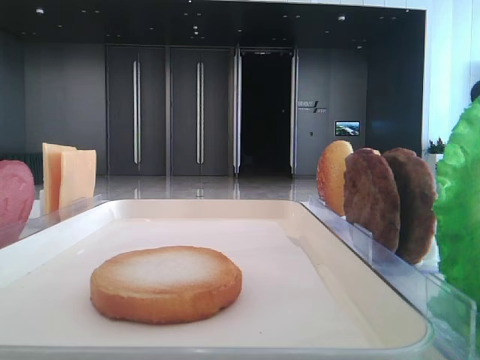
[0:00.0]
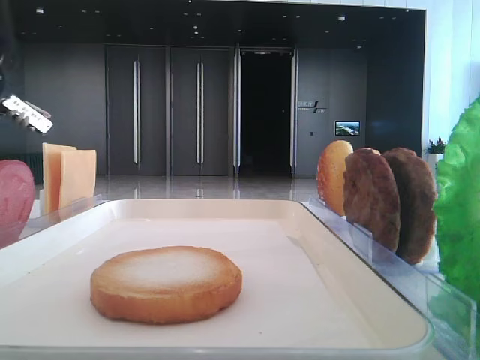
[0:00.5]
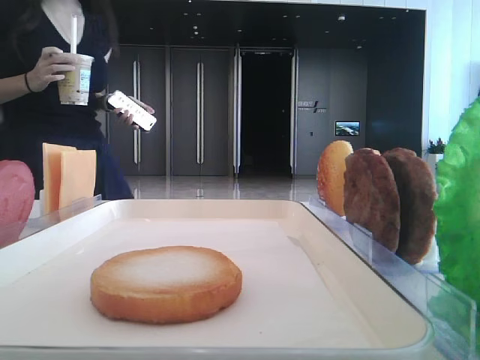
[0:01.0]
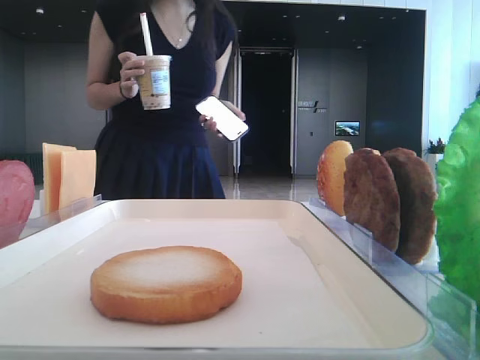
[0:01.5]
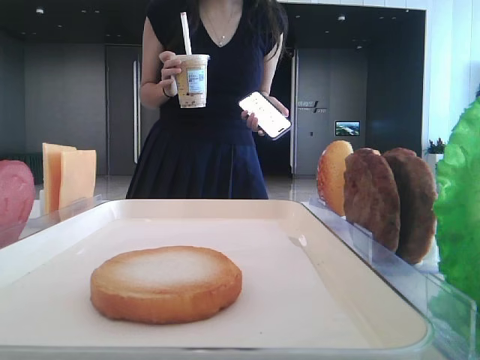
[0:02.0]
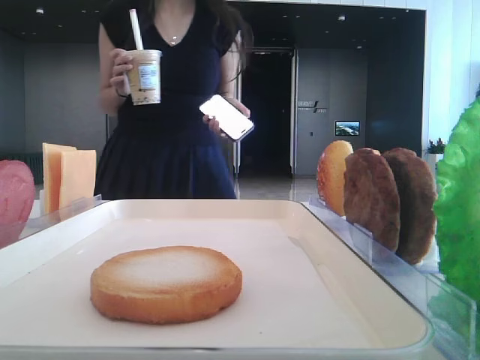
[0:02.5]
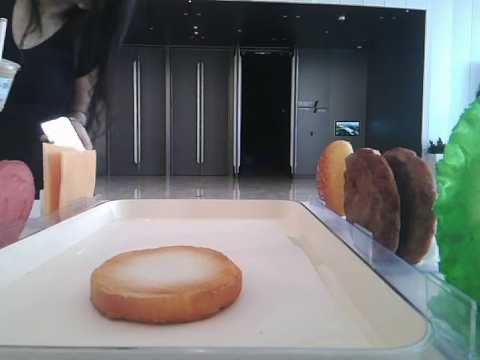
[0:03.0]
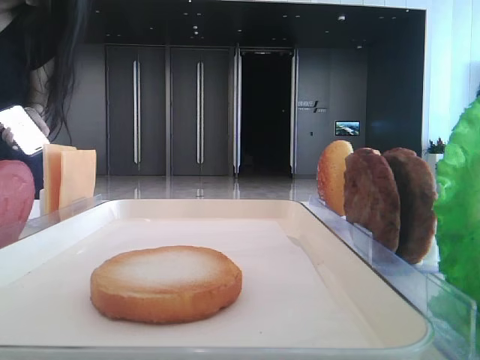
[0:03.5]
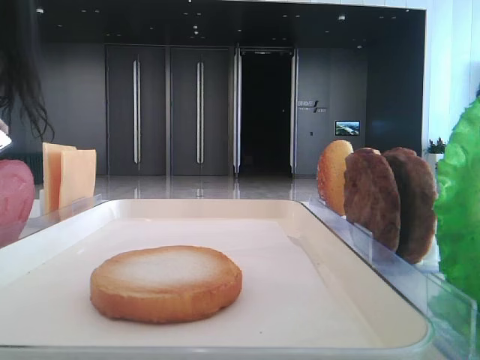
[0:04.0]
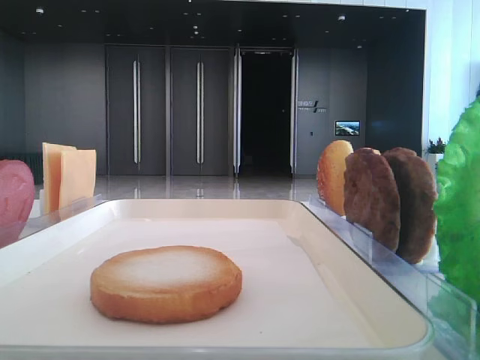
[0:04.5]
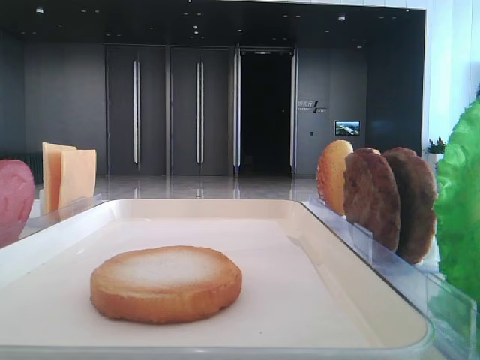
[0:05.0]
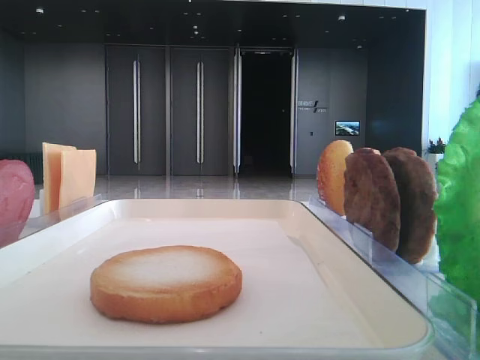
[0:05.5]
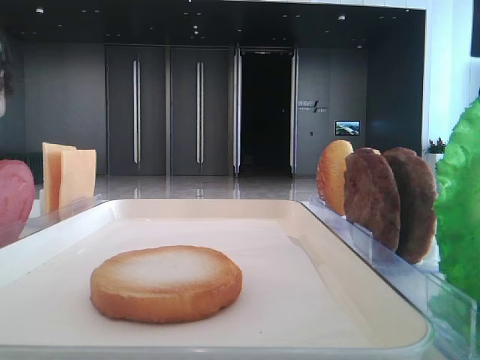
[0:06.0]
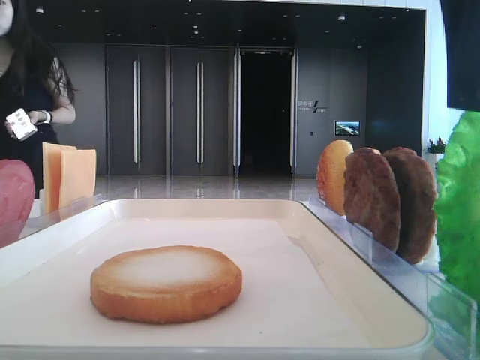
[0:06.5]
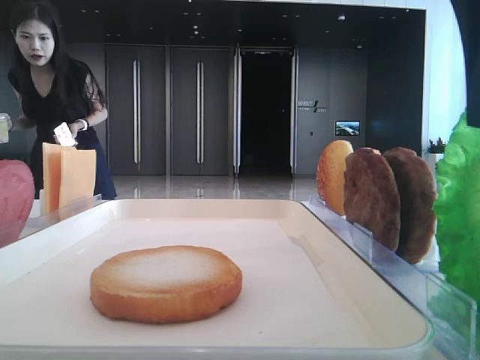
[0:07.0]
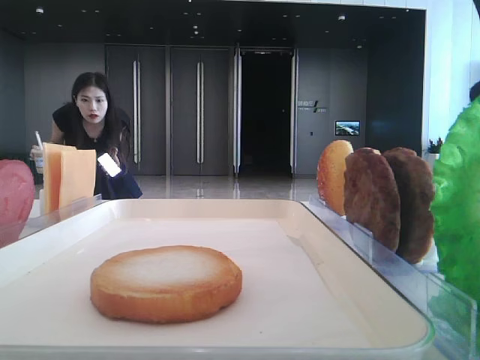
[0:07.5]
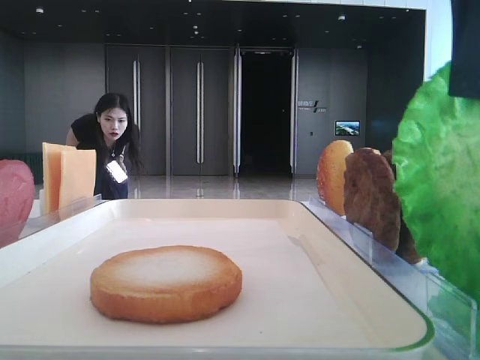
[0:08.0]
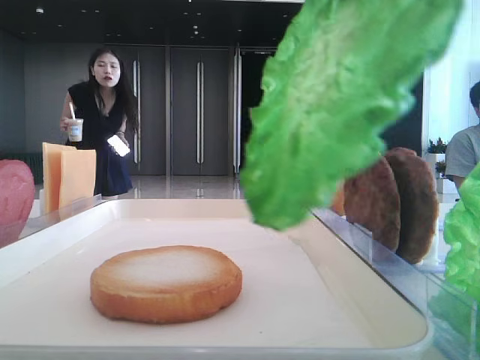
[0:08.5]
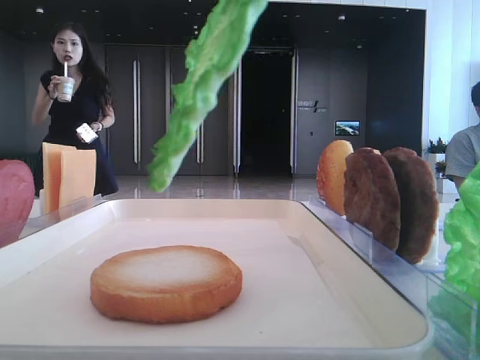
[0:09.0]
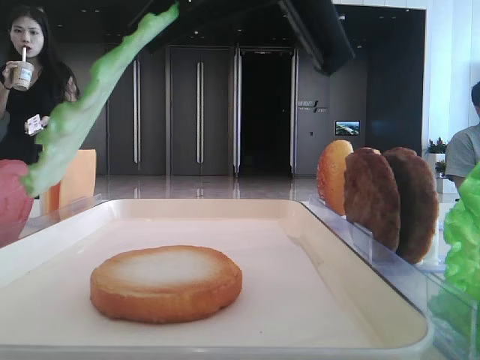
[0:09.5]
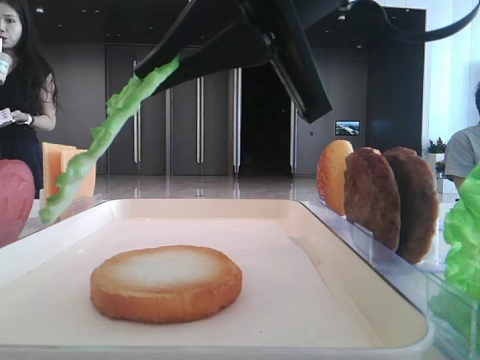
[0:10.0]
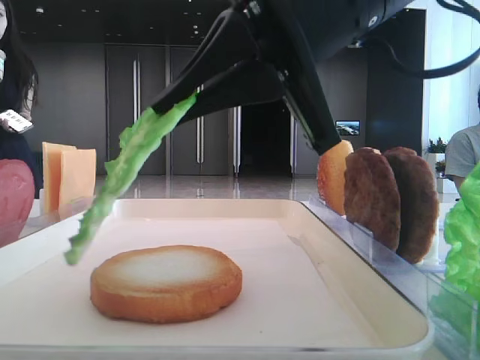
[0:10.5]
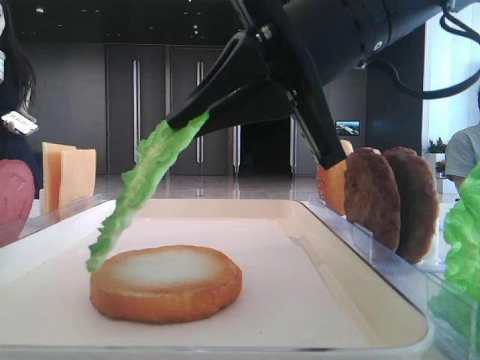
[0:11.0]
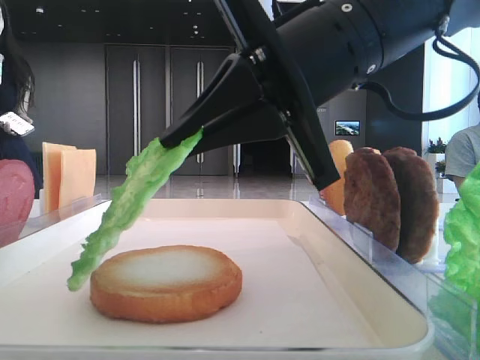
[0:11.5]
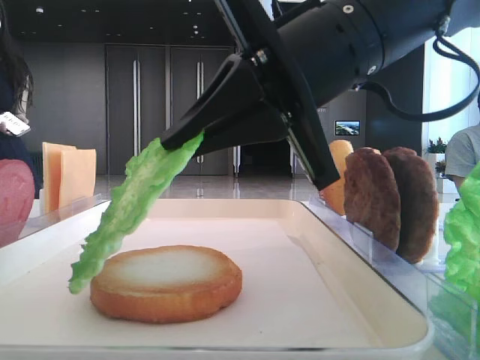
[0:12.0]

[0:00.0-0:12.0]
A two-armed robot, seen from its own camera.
Step, 0:00.0 to 0:07.5: Grab the lettuce leaf with the right hand.
0:02.0 to 0:04.0: The right gripper goes some 15 cm forward.
0:06.0 to 0:08.0: The right gripper closes up.
0:08.0 to 0:10.0: The right gripper shifts approximately 10 cm to the left and forward.
0:10.0 to 0:12.0: The right gripper ends up about 5 cm from where it was.

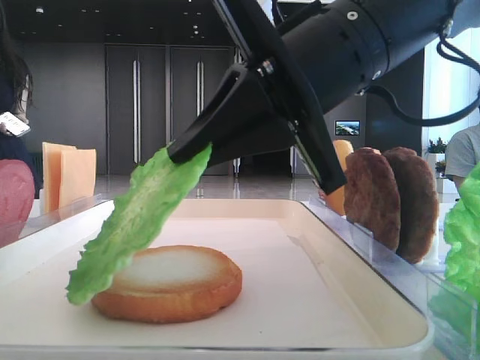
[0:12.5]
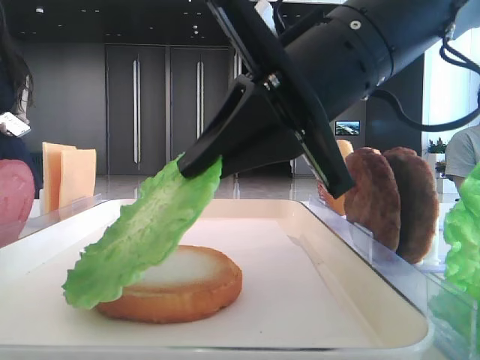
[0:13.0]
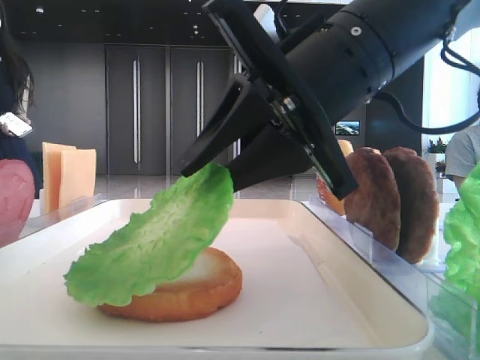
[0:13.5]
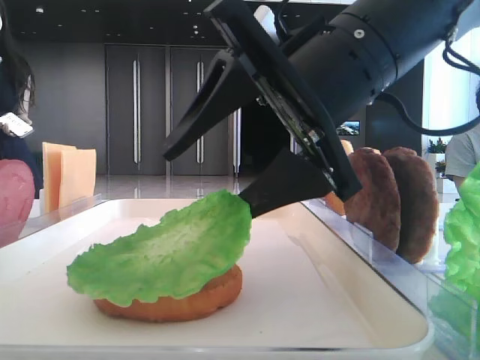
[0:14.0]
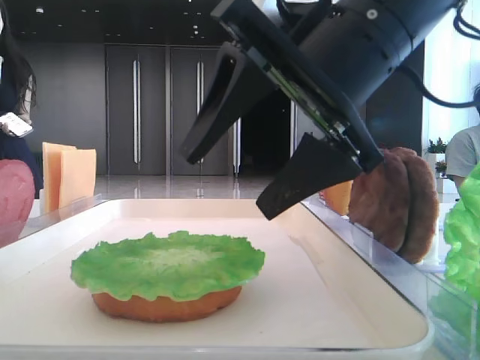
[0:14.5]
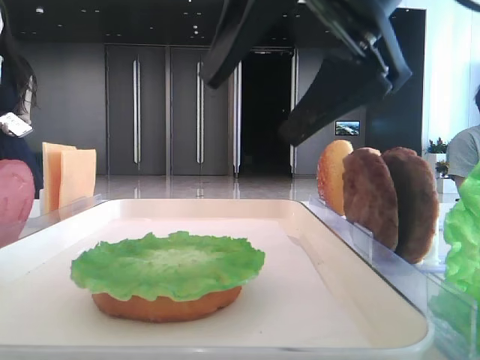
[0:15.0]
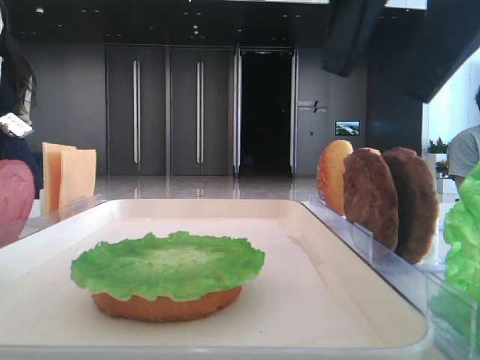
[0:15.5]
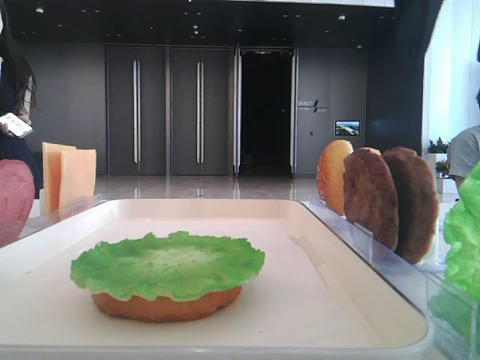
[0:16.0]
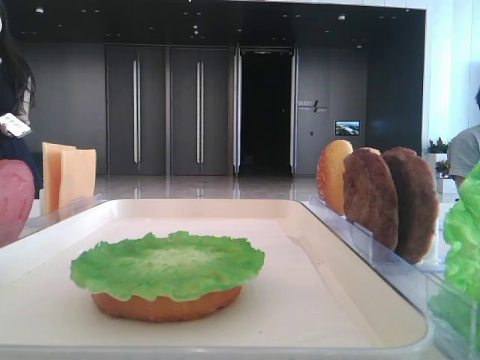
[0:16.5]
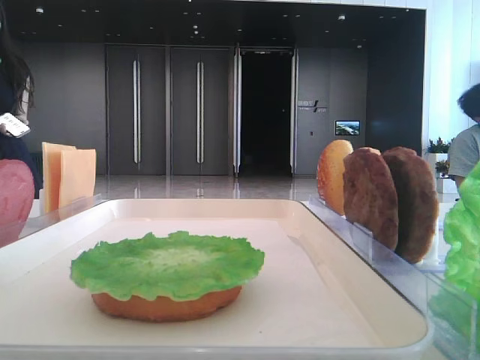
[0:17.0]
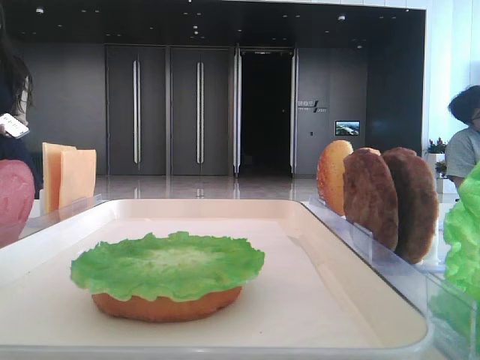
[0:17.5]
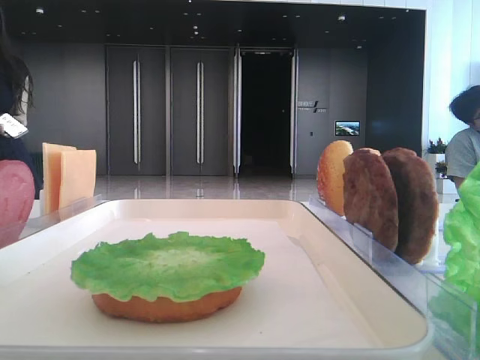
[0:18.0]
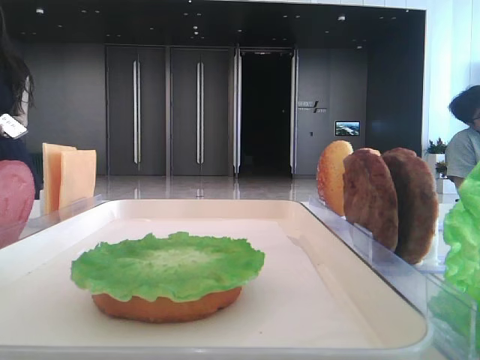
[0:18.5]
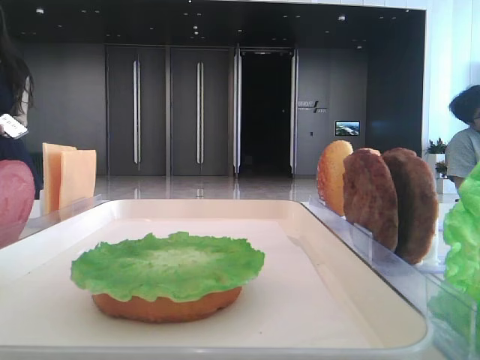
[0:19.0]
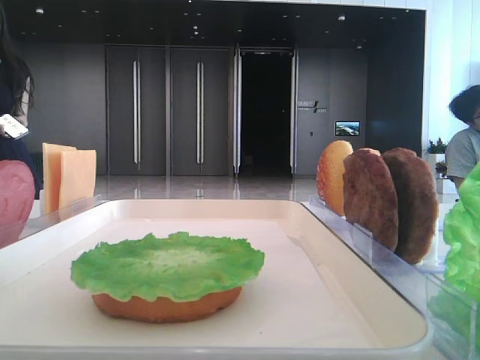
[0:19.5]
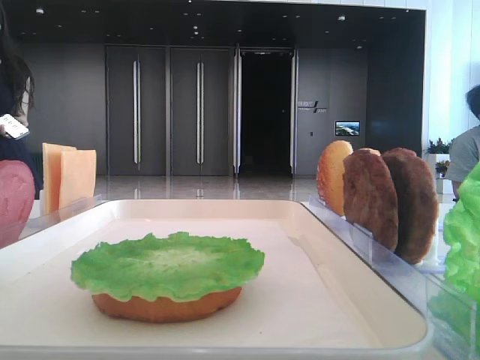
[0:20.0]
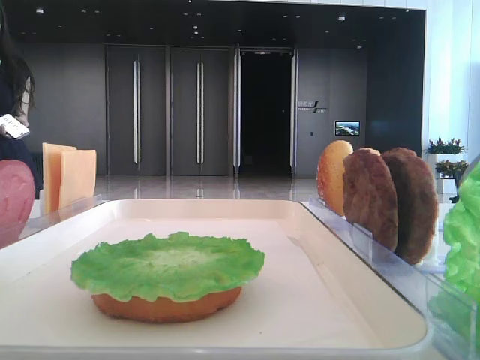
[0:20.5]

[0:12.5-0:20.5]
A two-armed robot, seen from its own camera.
0:12.5 to 0:14.5: The right gripper opens up.
0:14.5 to 0:16.5: The right gripper goes about 25 cm to the right and upward.
0:16.5 to 0:18.5: The right gripper shifts roughly 25 cm backward.
0:18.5 to 0:20.5: The right gripper shifts some 10 cm downward.

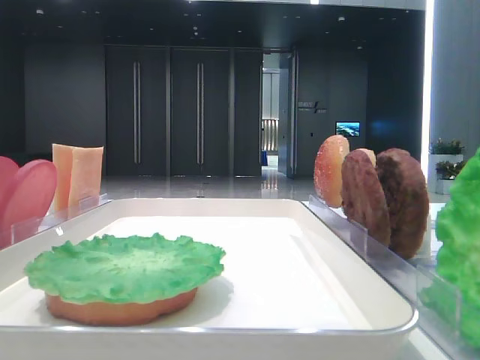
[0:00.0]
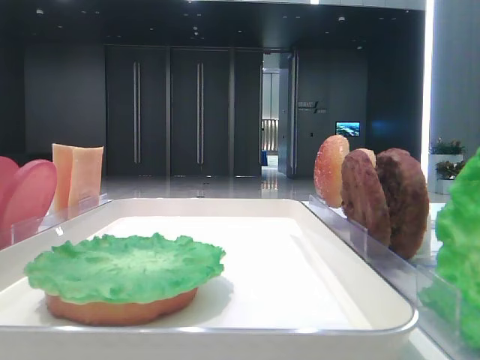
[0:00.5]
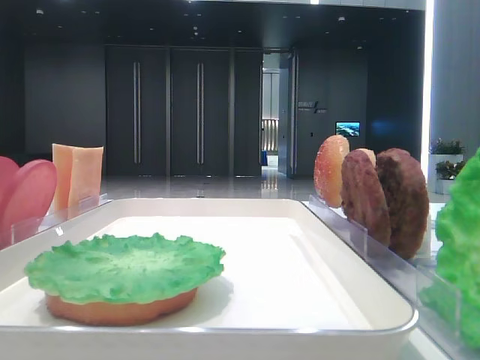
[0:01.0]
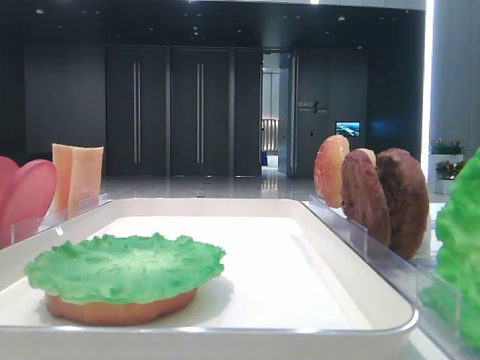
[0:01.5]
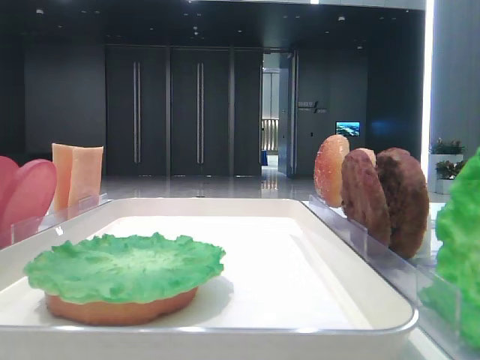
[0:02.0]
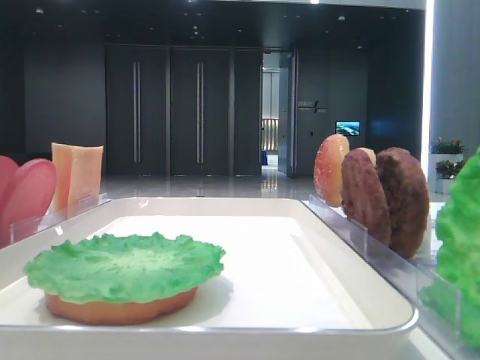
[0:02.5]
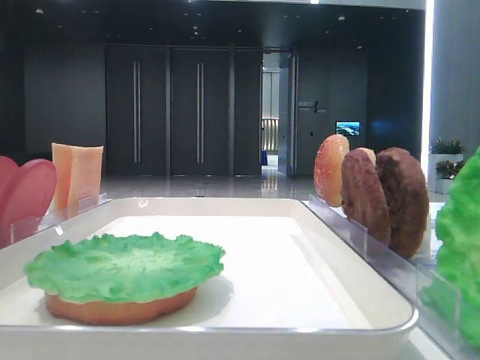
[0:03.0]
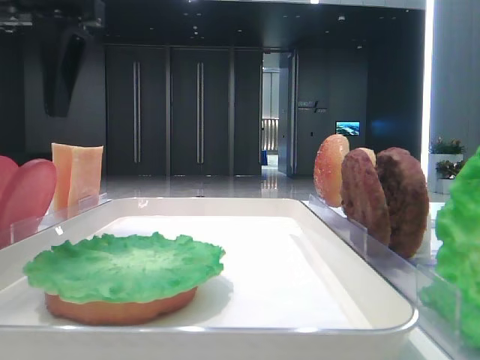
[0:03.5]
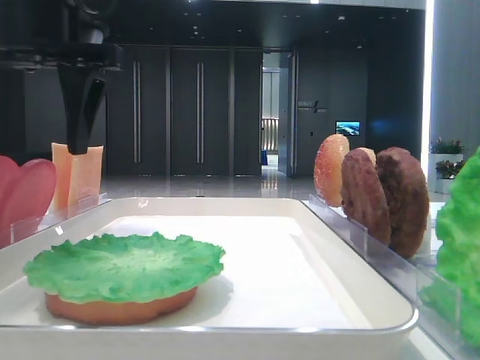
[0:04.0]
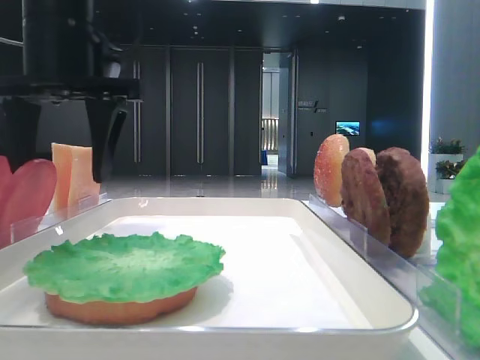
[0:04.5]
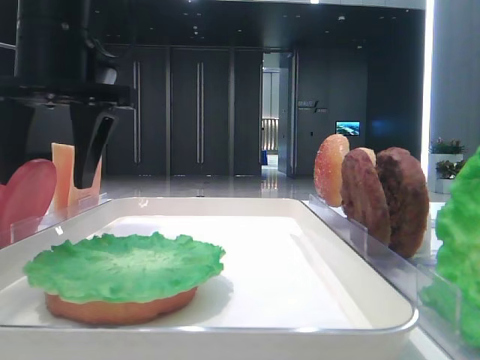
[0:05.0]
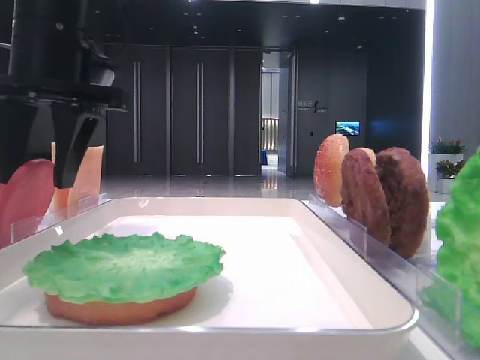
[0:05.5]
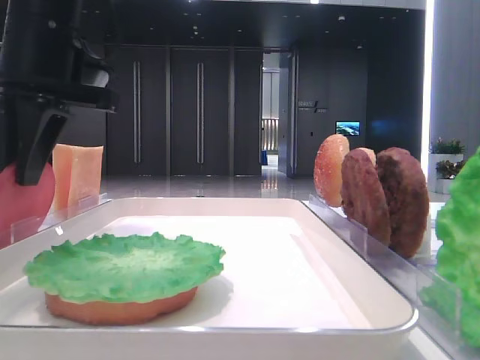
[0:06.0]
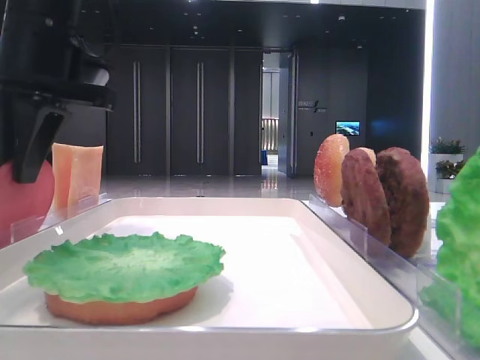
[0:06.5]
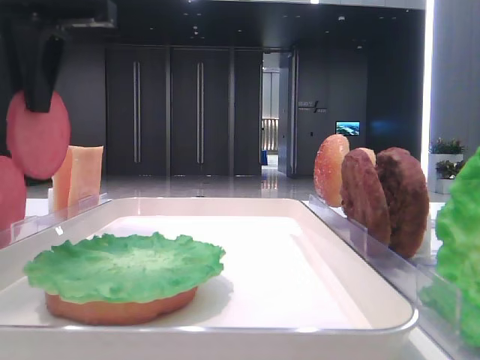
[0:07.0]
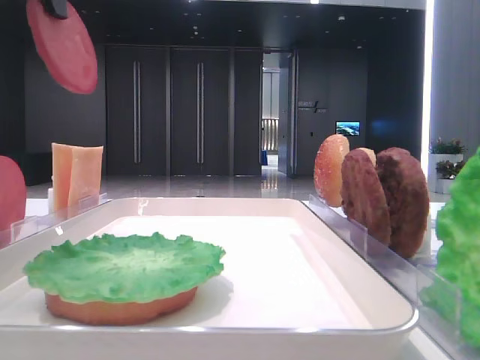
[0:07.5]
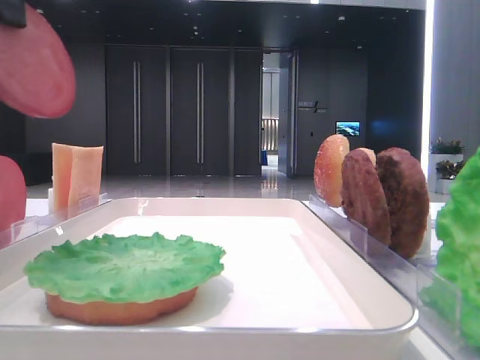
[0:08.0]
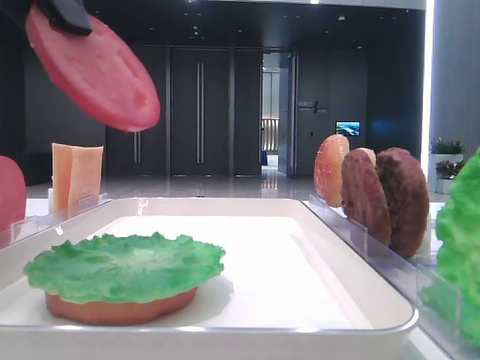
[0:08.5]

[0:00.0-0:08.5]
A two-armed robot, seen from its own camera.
Step, 0:00.0 to 0:05.5: Pick up the tomato slice with the left hand.
0:02.0 to 0:04.0: The left gripper is displaced forward, to the right and downward by some 25 cm.
0:04.0 to 0:06.5: The left gripper closes its fingers.
0:06.5 to 0:08.5: The left gripper is displaced backward and upward by approximately 15 cm.
